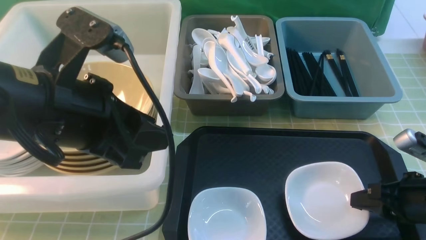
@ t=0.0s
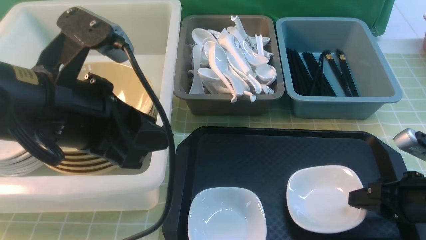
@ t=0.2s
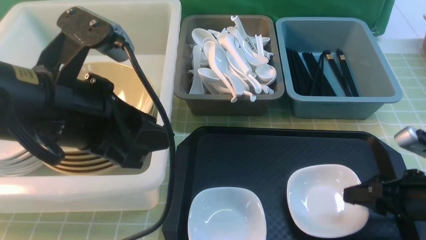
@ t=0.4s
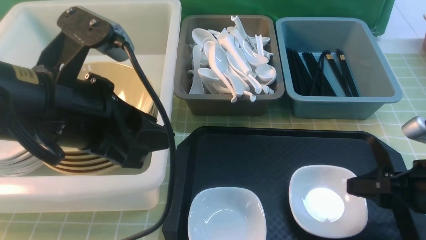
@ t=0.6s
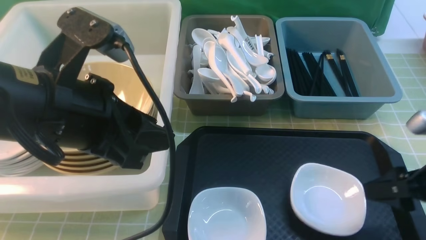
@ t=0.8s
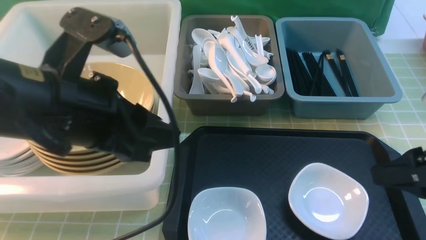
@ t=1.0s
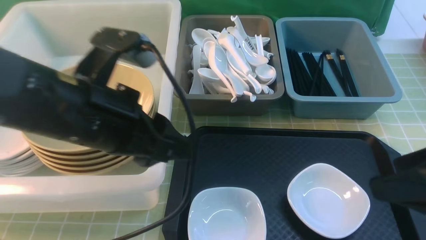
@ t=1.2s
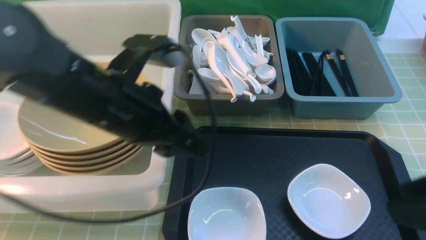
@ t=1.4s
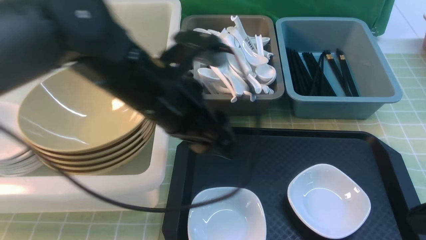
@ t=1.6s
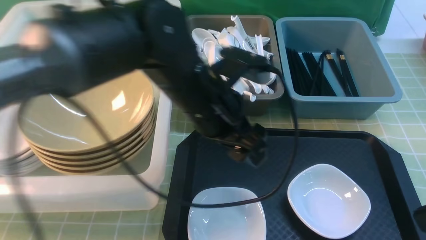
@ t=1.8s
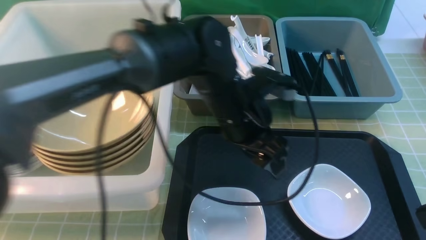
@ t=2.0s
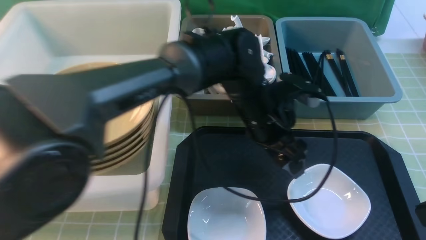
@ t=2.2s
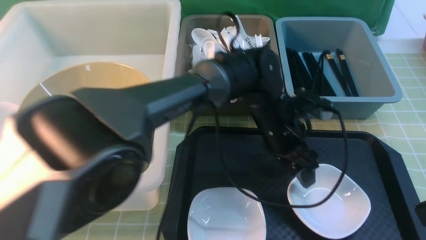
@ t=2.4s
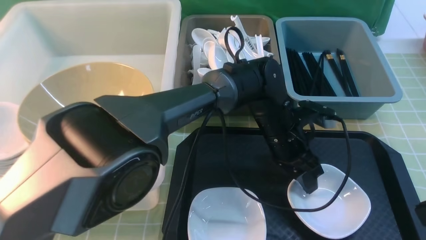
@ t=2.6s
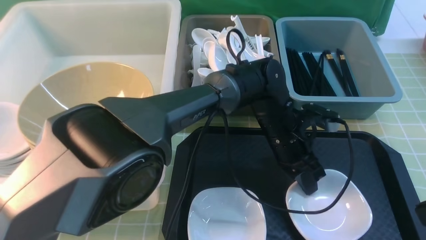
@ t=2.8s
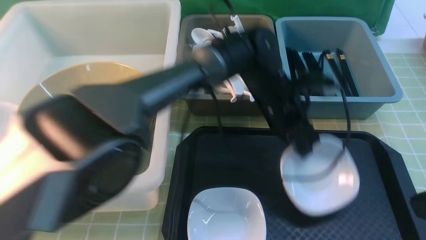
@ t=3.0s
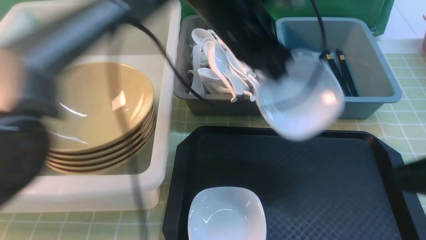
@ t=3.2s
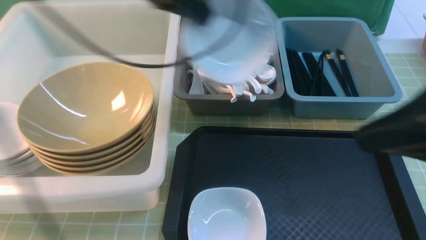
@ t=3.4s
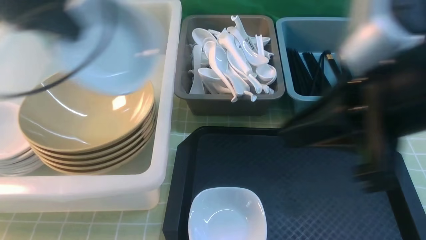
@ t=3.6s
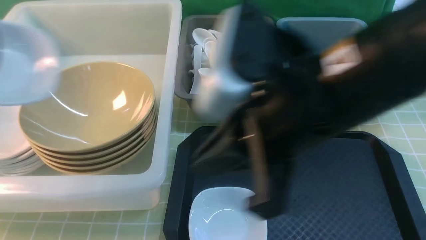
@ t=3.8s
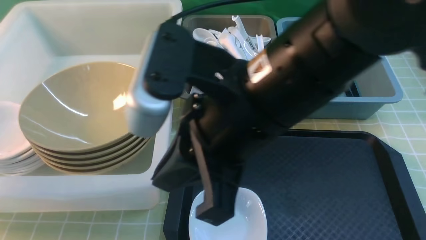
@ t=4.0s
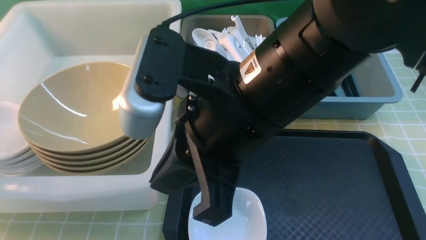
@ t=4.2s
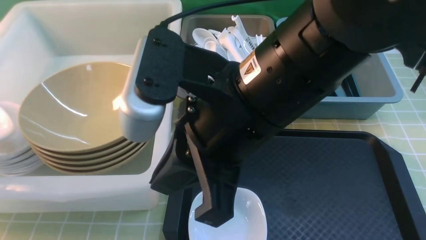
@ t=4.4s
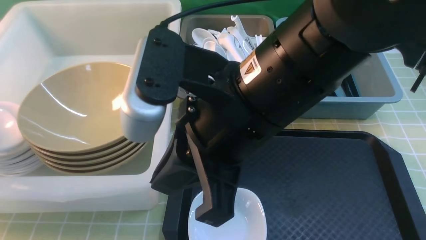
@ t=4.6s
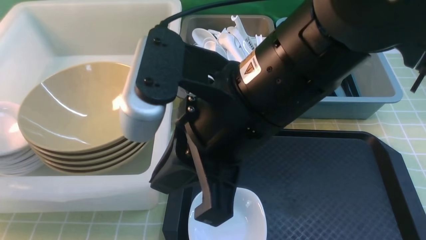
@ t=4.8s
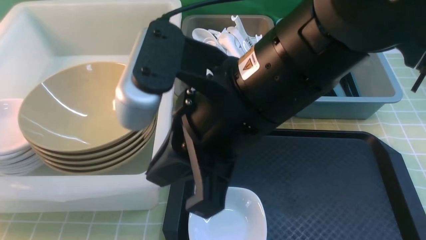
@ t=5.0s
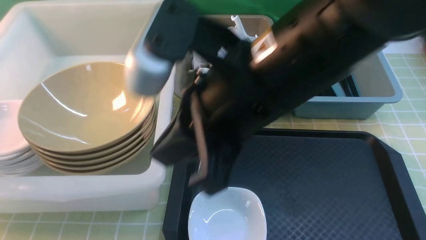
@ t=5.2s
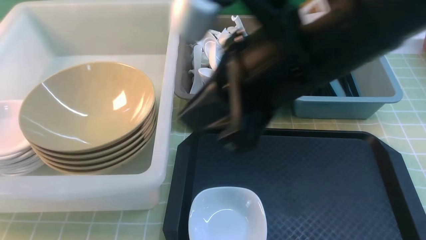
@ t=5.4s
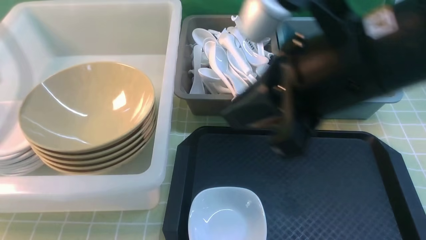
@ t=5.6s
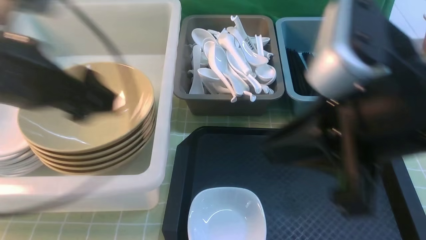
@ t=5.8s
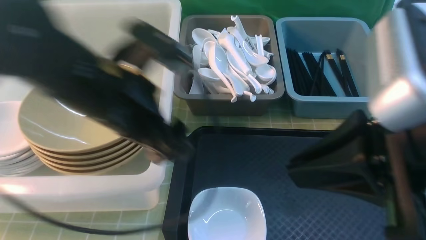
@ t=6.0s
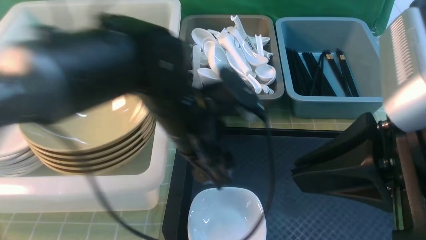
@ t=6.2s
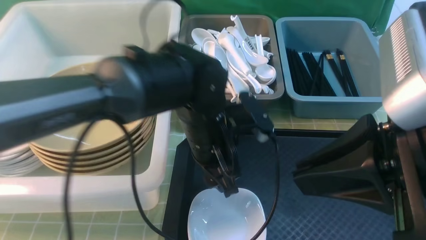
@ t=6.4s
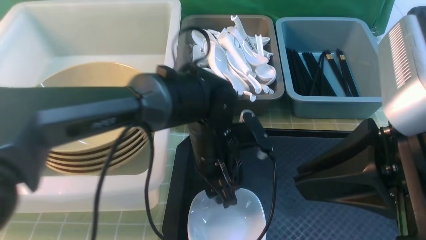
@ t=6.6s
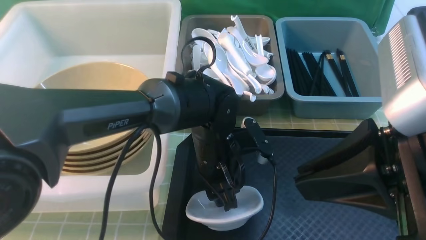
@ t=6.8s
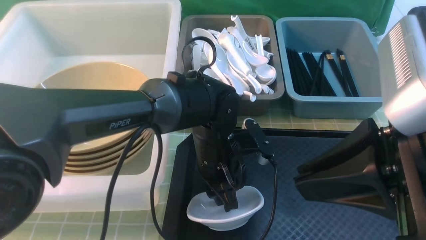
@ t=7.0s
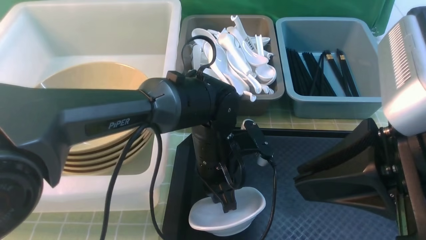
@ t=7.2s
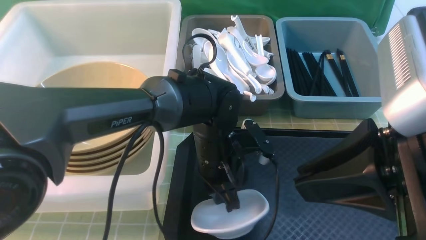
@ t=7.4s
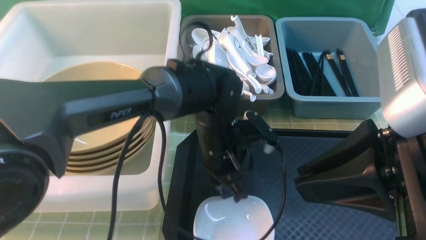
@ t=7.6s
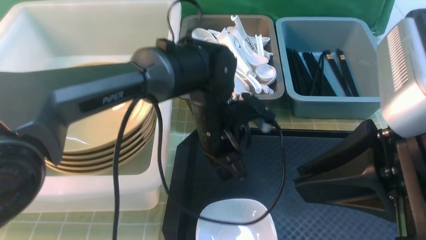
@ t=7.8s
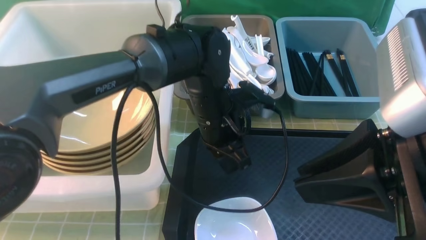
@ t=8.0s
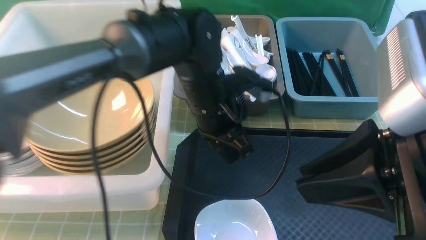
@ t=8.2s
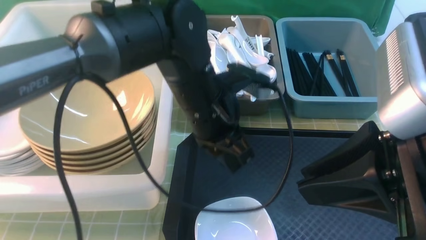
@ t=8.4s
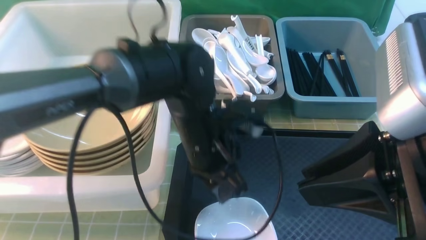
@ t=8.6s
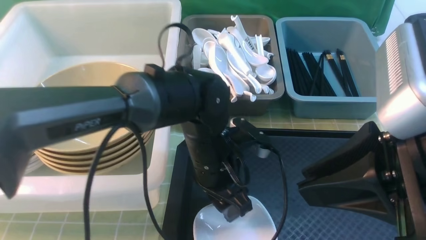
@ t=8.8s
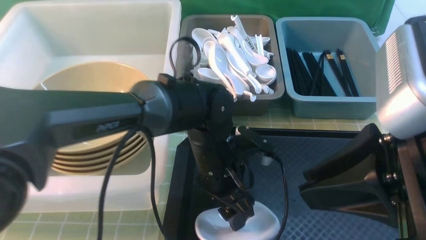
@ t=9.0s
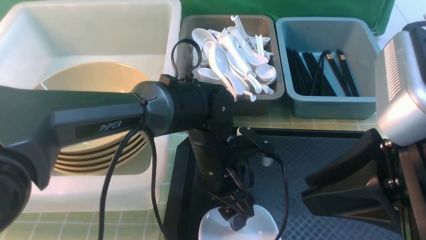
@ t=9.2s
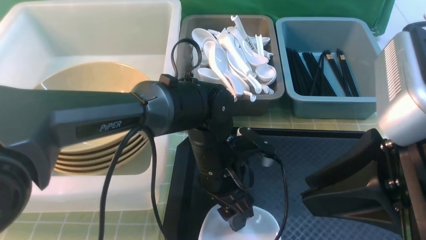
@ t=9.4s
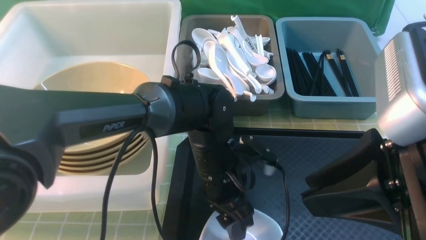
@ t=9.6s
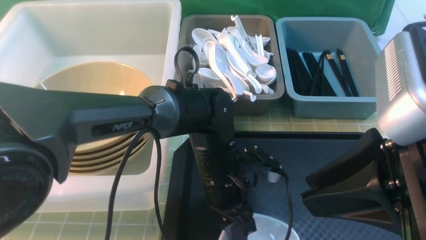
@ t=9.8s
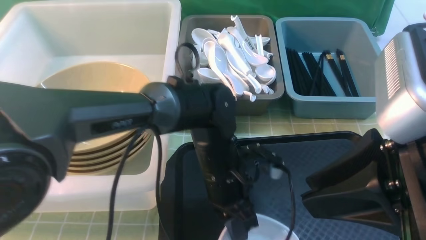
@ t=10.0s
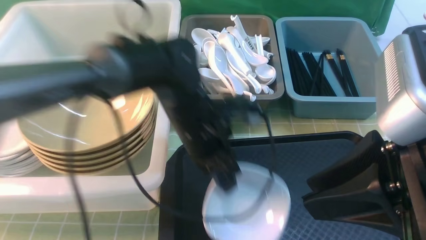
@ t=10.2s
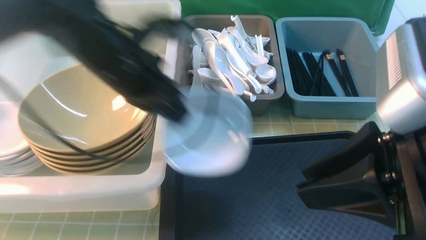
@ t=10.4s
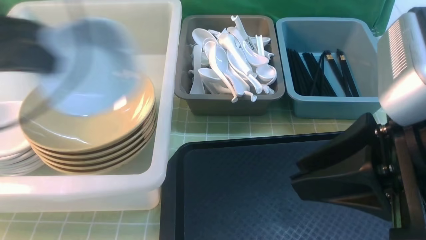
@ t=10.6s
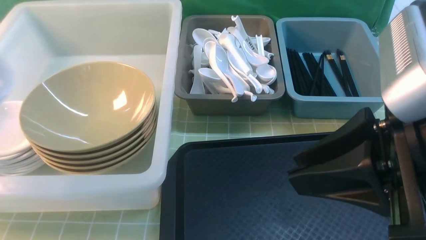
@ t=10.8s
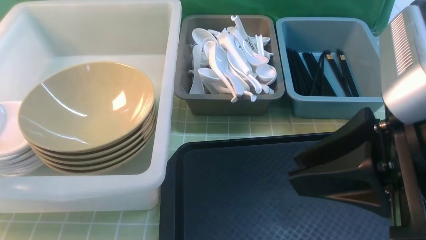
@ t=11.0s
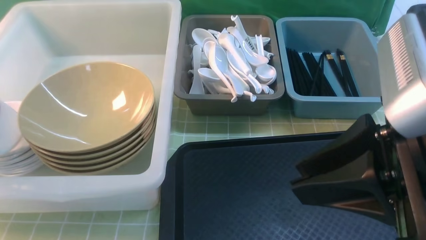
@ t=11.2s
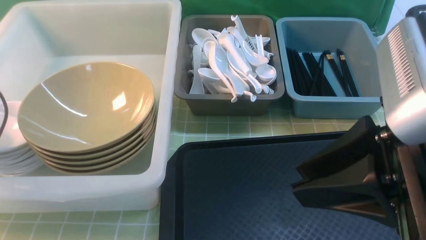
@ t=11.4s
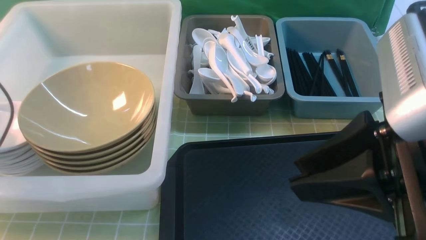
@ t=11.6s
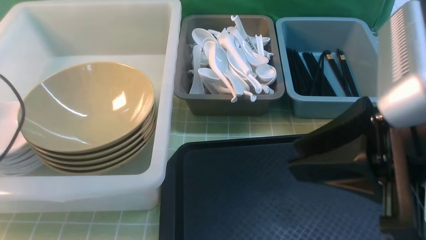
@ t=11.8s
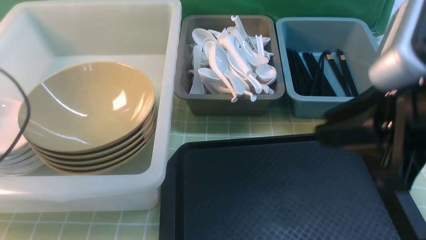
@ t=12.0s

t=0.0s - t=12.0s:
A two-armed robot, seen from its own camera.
Task of the whole recording: on green table put chopsticks spoon bowls plates into blue grey white boxes.
Step, t=0.6s - t=3.0s: use the left arm to grab the plate.
Step, t=3.2s - t=5.4s: use the left arm to put the plate into the large storage box on the left.
Step, t=5.6s - t=10.2s: use the left arm to grab the plate.
t=0.0s - t=1.6s: The left gripper heads to the right and forward, covering approximately 10 cm, while the right gripper goes approximately 20 cm upward and backward, and opens, then closes again.
t=1.6s - t=3.0s: The left gripper goes some 15 cm to the right, forward and downward, and closes up.
t=3.0s - t=4.4s: The left gripper travels to the left by some 50 cm. The right gripper moves to the left, roughly 25 cm.
t=4.4s - t=6.0s: The right gripper is displaced to the right by approximately 15 cm, while the left gripper heads to the right, covering some 30 cm, and opens its fingers.
t=6.0s - t=7.6s: The left gripper moves downward and to the right, roughly 15 cm, and closes.
t=7.6s - t=9.0s: The left gripper reaches about 5 cm upward, then returns, and opens up.
t=9.0s - t=10.4s: The left gripper goes approximately 25 cm to the left and upward, and closes its fingers.
t=10.4s - t=12.0s: The left gripper travels to the left by some 15 cm, and opens up.

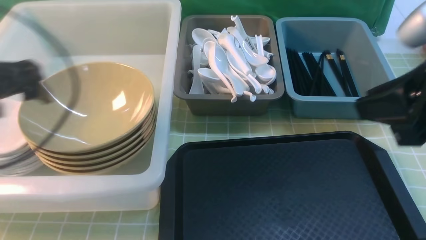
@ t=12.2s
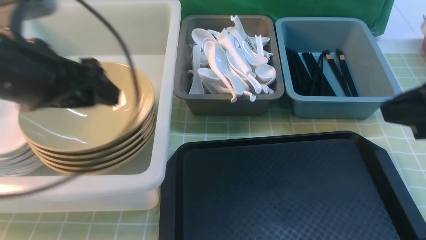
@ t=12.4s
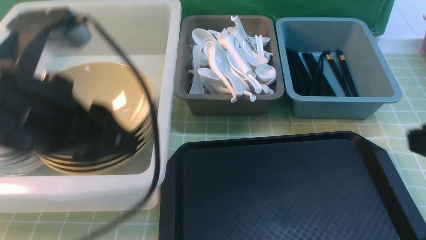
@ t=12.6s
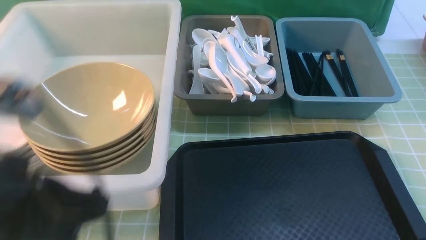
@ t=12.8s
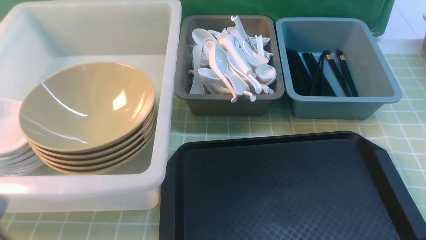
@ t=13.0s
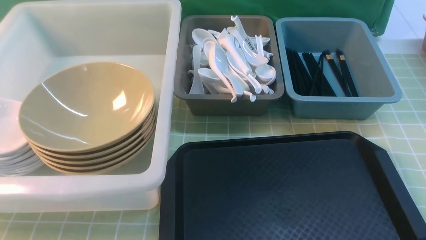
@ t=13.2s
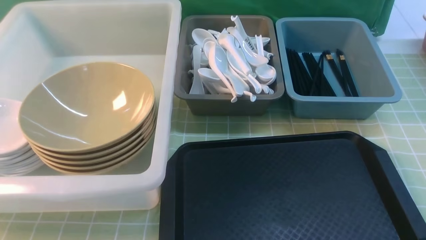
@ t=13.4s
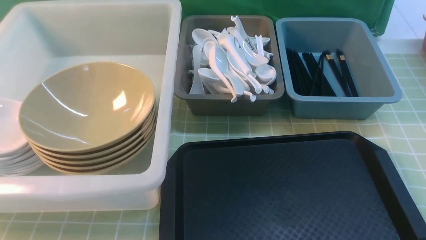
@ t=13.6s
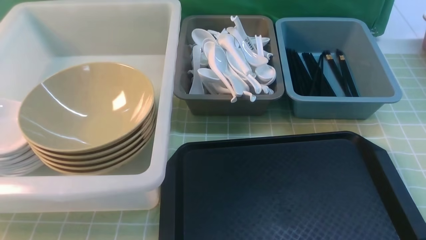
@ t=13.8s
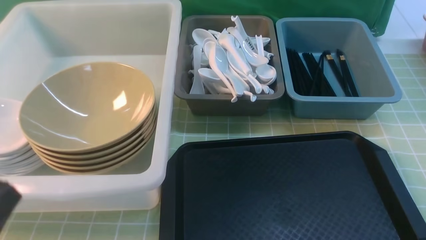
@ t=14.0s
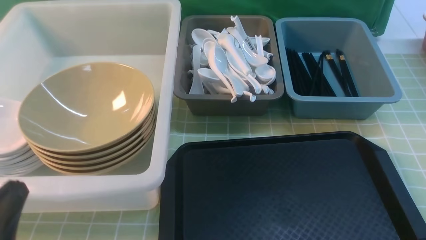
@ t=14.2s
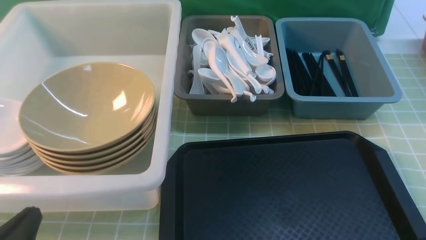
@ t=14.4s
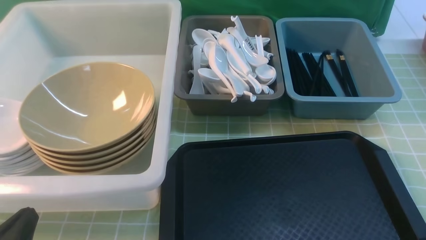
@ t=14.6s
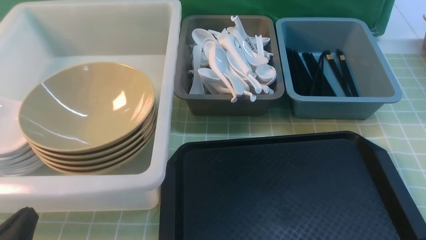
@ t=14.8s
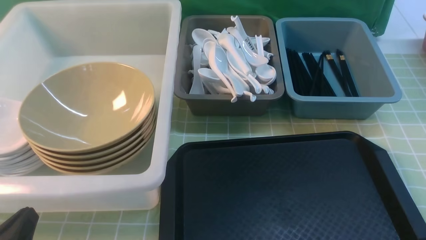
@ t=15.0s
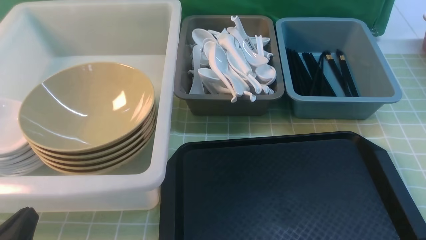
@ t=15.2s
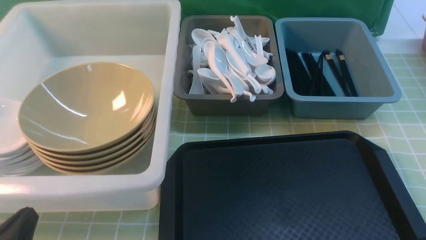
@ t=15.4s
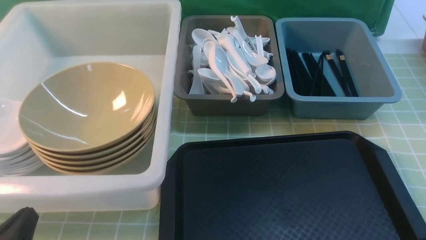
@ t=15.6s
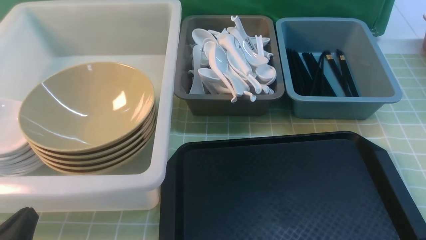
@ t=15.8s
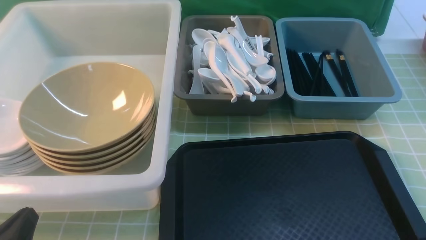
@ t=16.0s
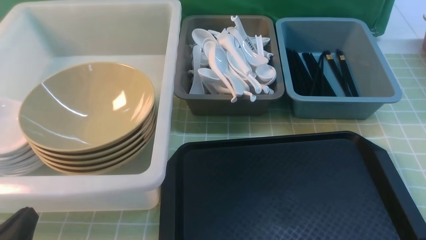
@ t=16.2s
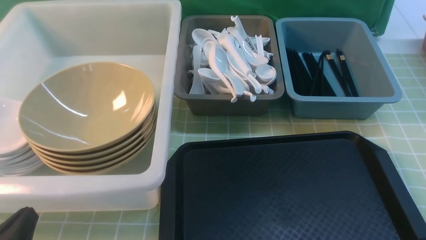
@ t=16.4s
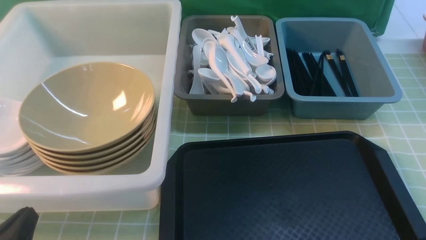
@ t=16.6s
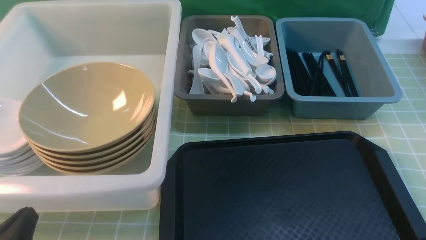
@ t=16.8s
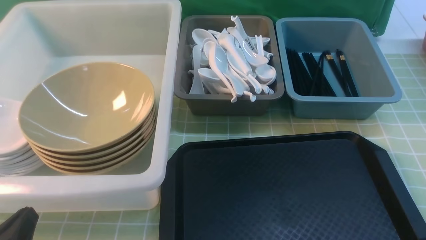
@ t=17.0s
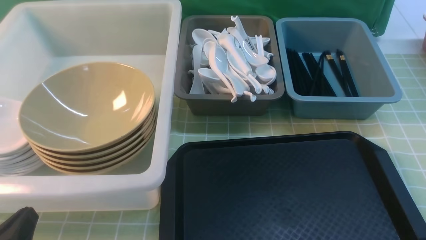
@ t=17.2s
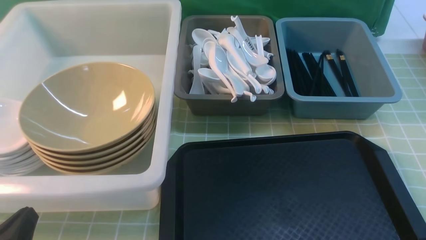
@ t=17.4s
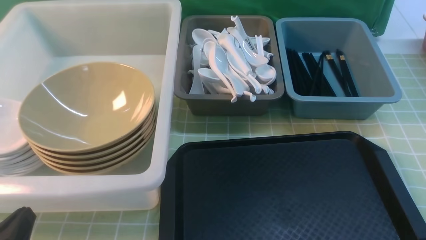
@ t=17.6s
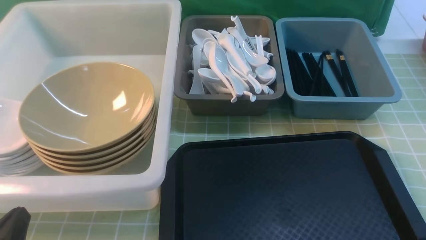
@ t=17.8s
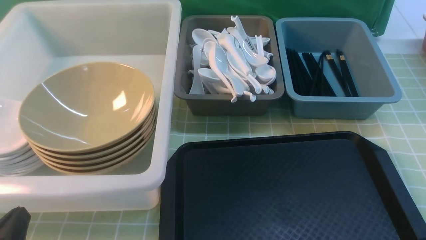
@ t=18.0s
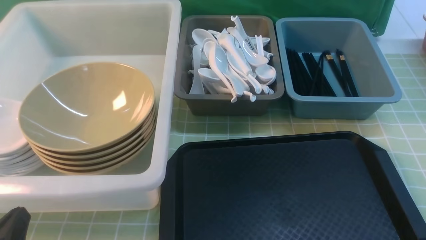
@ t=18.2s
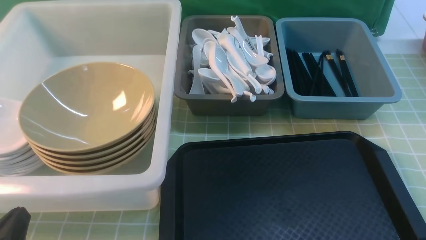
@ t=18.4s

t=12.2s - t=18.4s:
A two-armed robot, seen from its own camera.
Task of the whole recording: on green table put chopsticks spoon bowls plates into blue grey white boxes.
t=12.2s - t=13.8s: The left gripper moves backward, roughly 25 cm, and closes its fingers; the right gripper is displaced backward, downward and to the right by roughly 20 cm.
t=13.8s - t=15.4s: The left gripper heads downward and forward, covering roughly 10 cm.
t=16.8s - t=18.4s: The two grippers keep their place.
